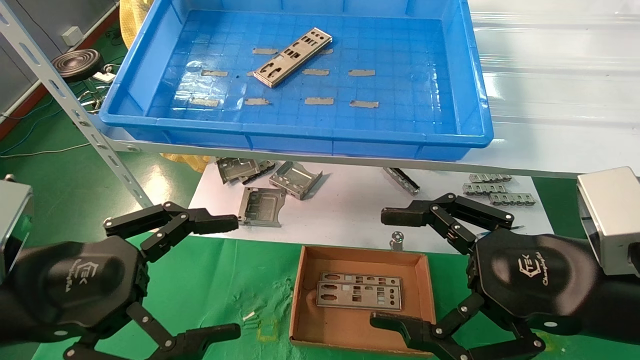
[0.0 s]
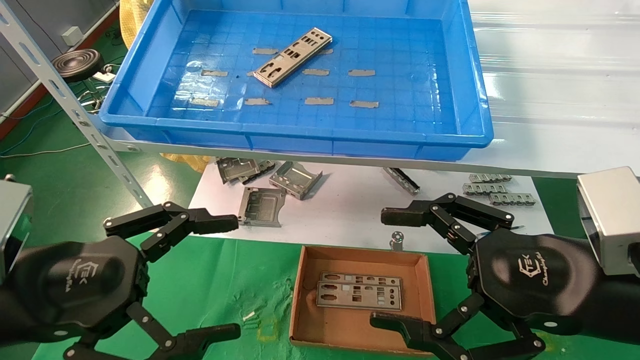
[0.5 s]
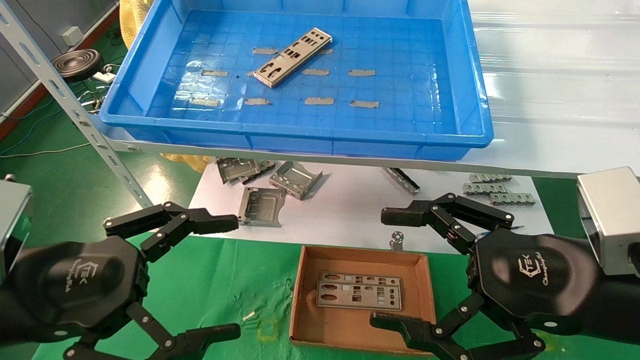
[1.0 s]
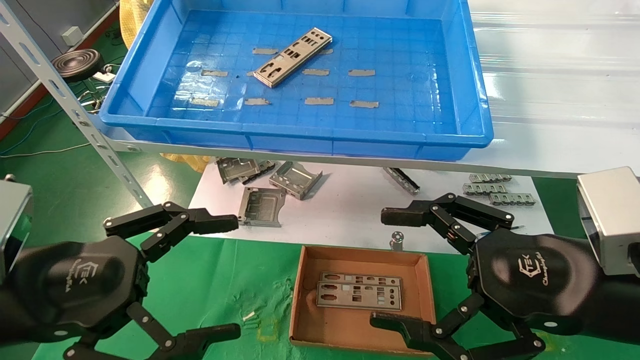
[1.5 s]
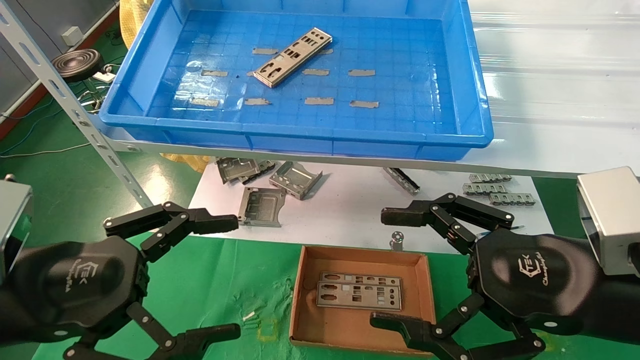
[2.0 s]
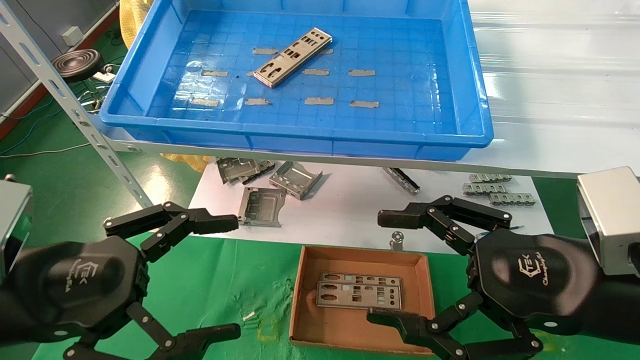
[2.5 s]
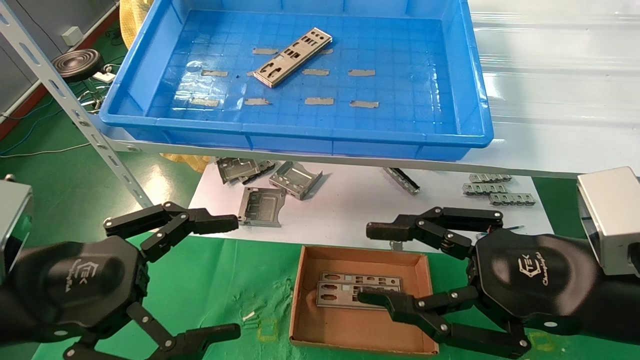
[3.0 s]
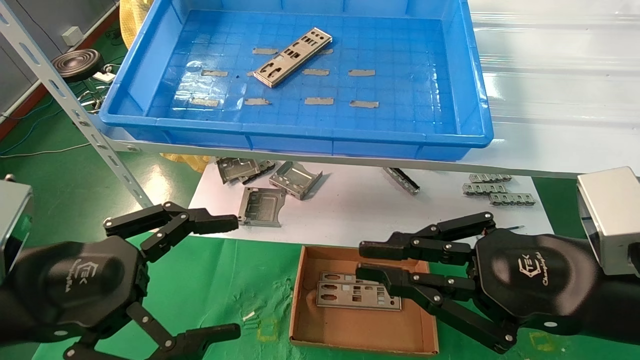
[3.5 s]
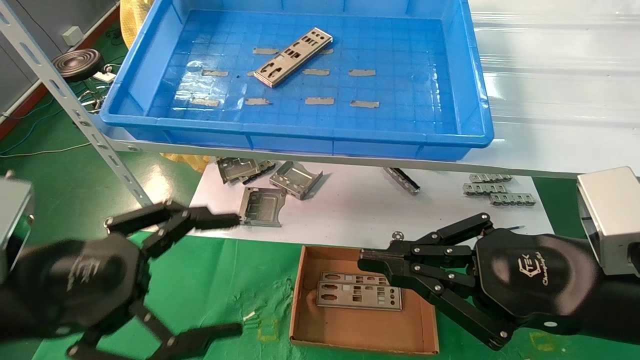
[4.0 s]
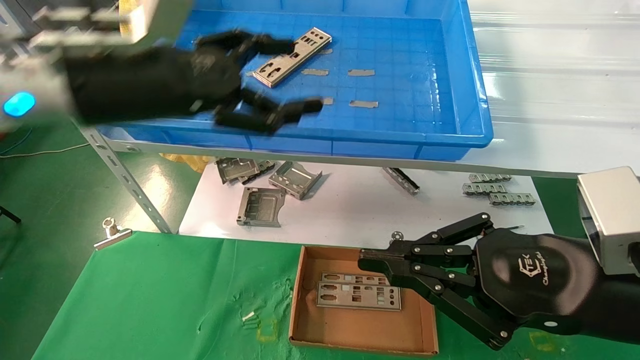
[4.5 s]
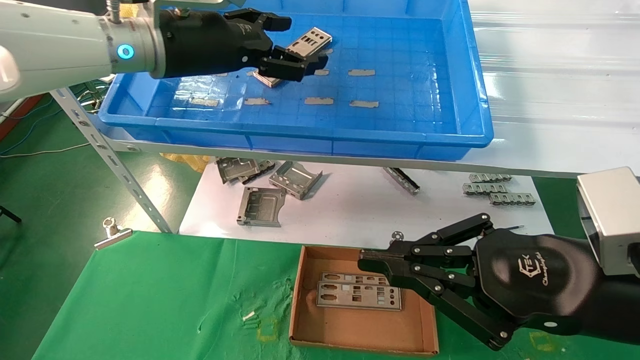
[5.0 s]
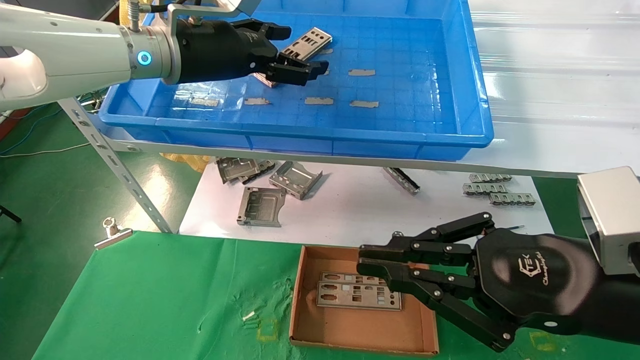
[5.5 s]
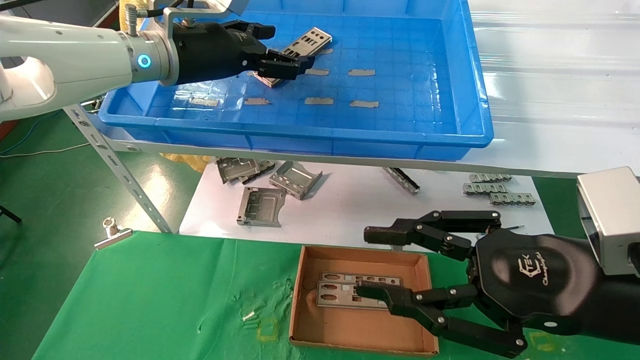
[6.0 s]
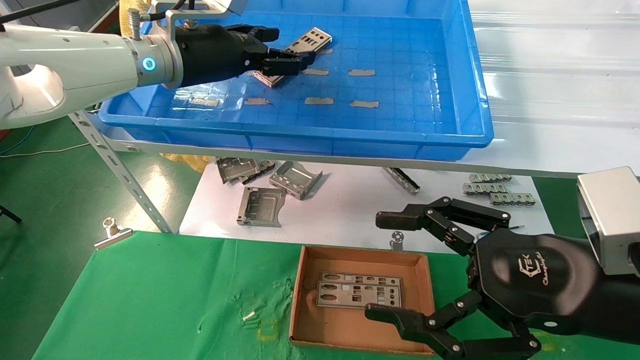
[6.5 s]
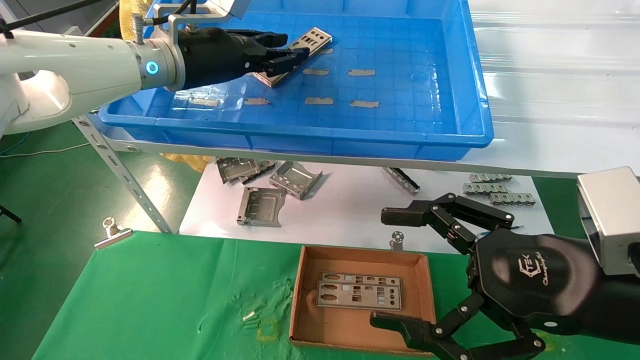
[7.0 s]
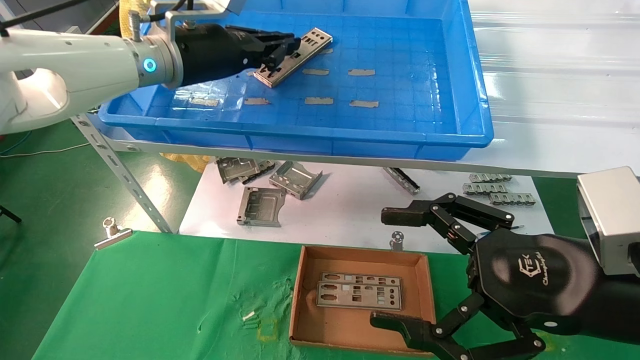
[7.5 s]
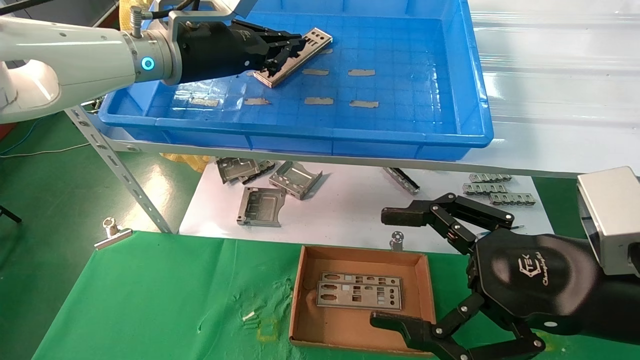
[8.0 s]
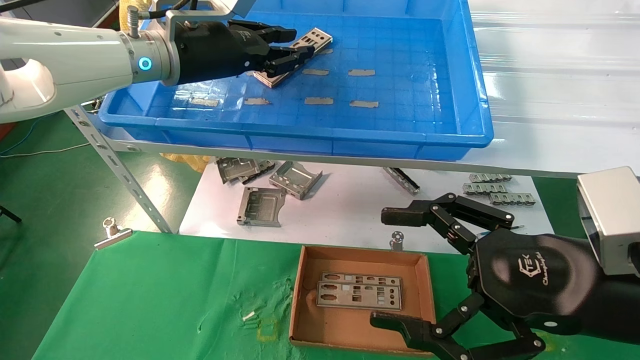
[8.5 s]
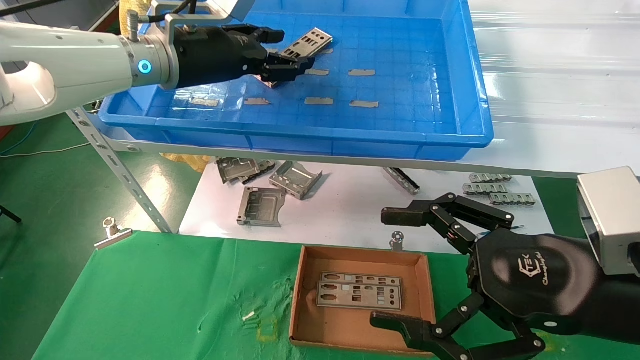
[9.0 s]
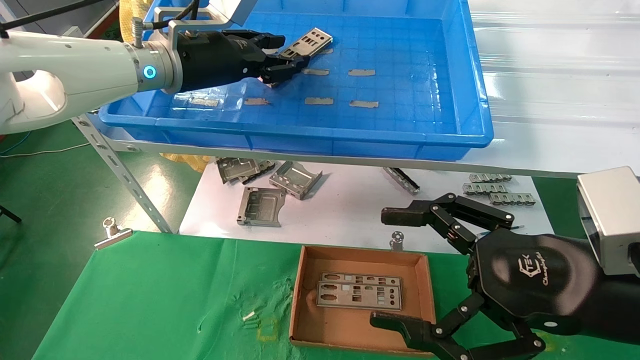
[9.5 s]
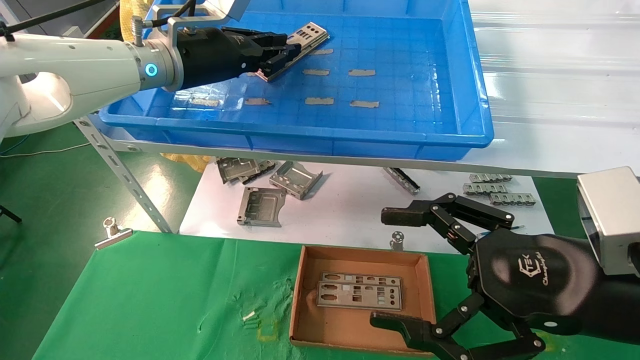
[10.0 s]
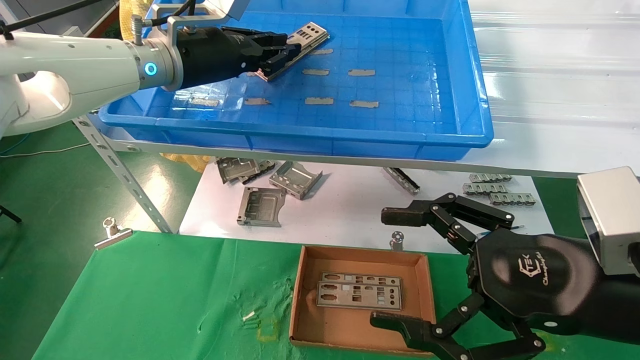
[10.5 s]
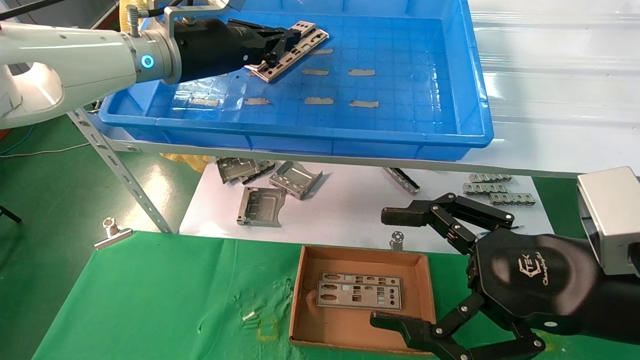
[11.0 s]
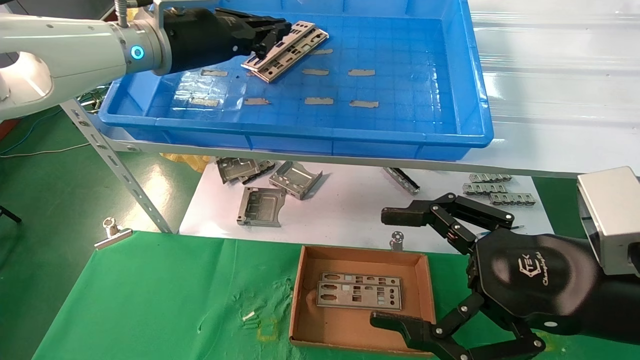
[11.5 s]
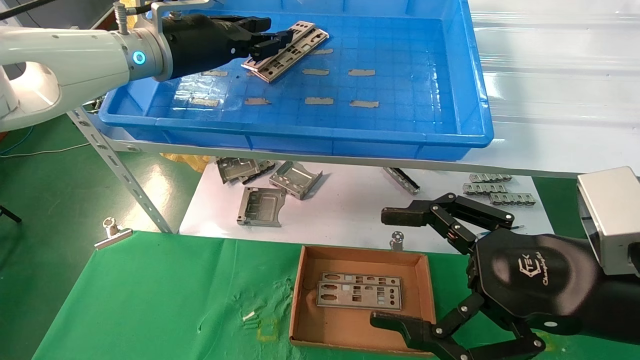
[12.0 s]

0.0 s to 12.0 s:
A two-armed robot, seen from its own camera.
Task of the whole recording: pick up the parts on the tray and put them in the cardboard box.
0.0 to 2.0 s: Both grippers stay about where they are.
2.0 to 4.0 s: The right gripper closes its fingers.
4.0 to 6.0 s: The left gripper goes some 30 cm forward, upward and to the right.
6.0 to 8.0 s: The left gripper closes up, while the right gripper opens its fingers.
8.0 to 10.0 s: The left gripper opens, then closes once more.
10.0 to 12.0 s: The grippers stay close to where they were, moving slightly.

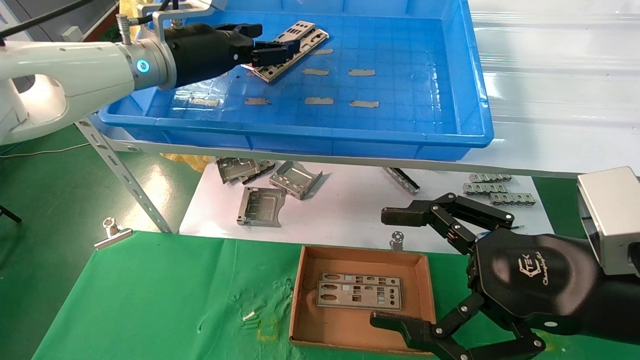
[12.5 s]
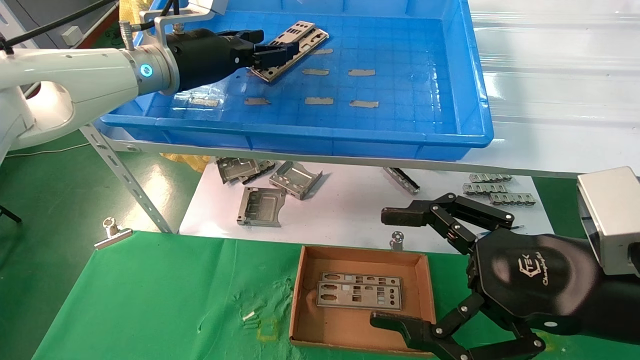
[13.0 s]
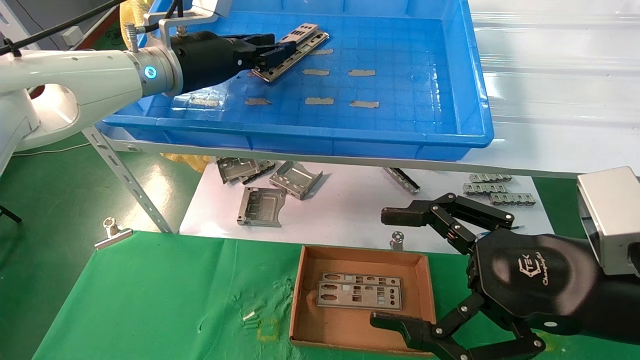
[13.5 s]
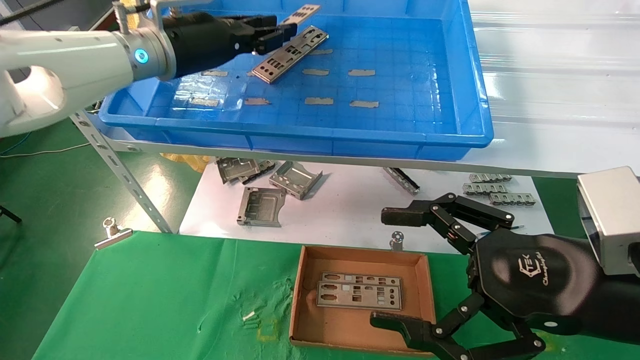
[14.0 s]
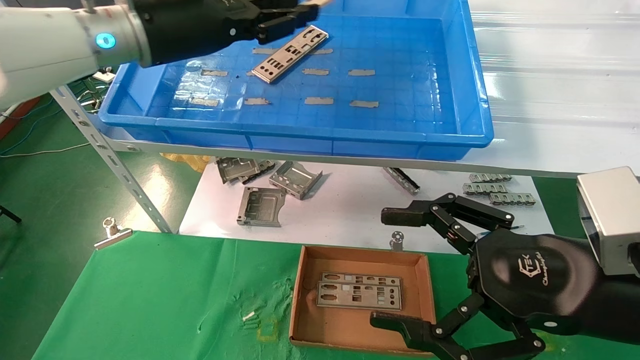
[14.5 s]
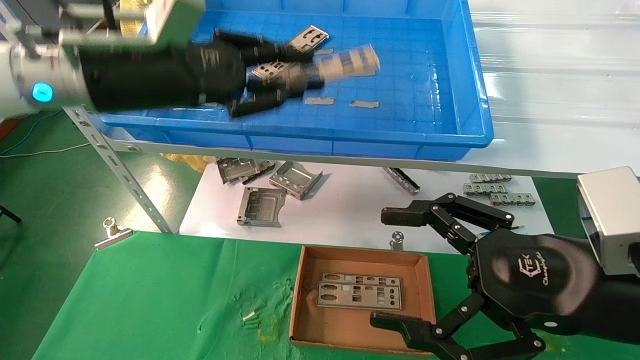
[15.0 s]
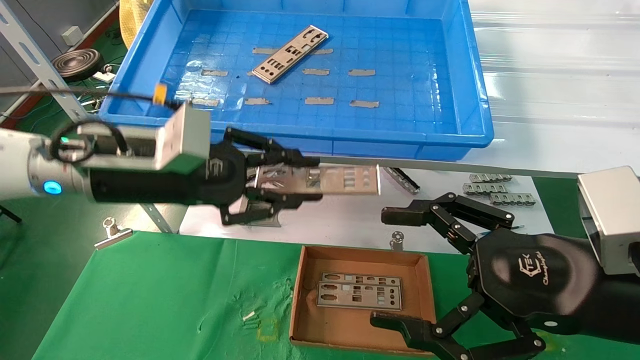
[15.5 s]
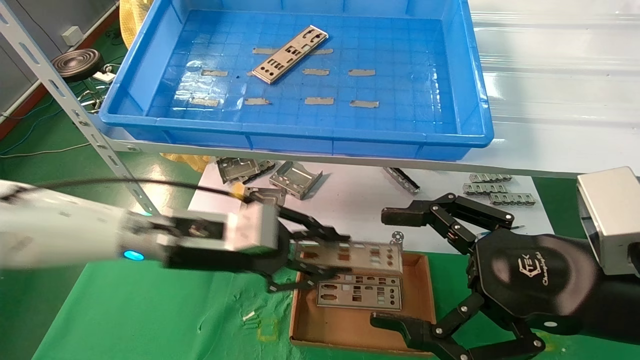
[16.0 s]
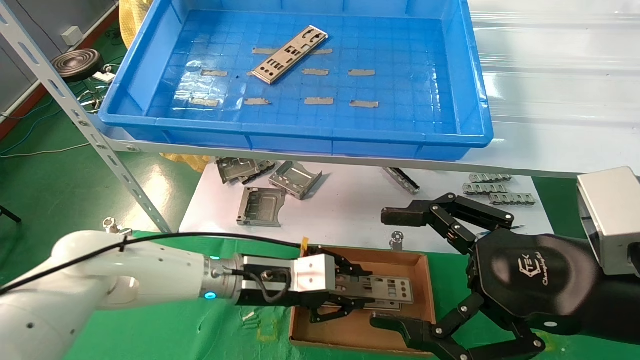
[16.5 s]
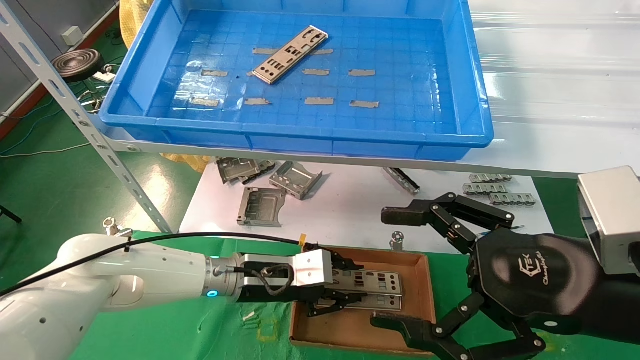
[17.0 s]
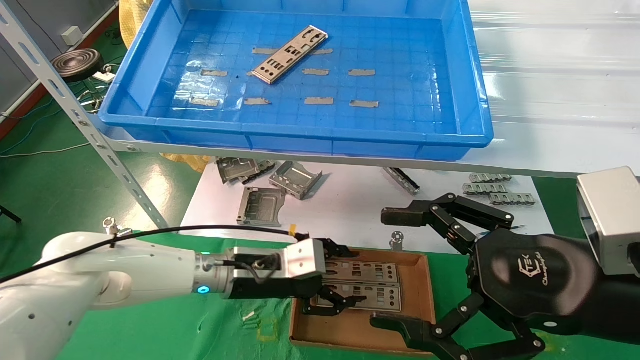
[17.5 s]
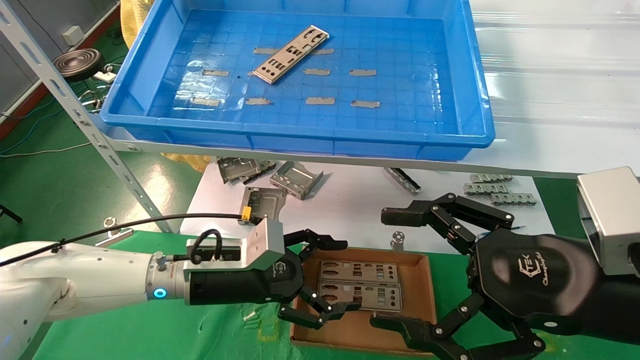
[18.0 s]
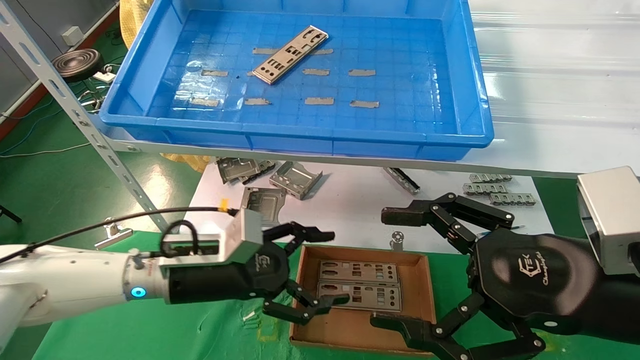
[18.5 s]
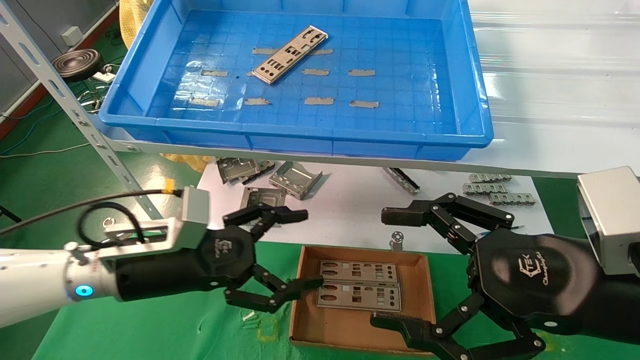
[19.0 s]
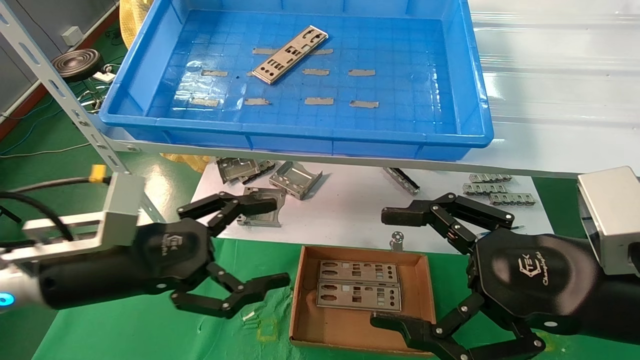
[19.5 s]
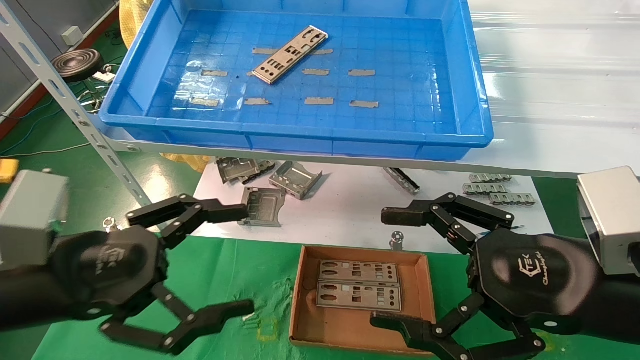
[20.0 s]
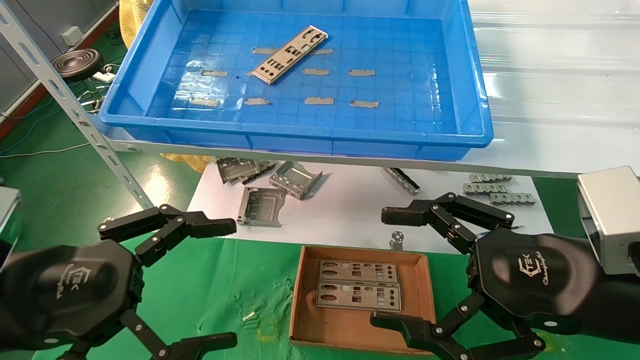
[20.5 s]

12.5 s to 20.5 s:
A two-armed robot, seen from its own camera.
Task of the whole recording: pick up the parts on the tray and put them in the cardboard box.
Step, 14.0 to 17.0 s: Place the IO bracket into the ingredient slot.
12.5 to 14.5 s: The left gripper heads backward, covering about 5 cm, and closes up.
14.5 to 16.5 s: The left gripper is displaced downward by roughly 30 cm.
16.5 to 18.5 s: The left gripper goes some 5 cm to the left, and opens up.
18.5 to 20.5 s: The left gripper is displaced backward, to the left and upward by some 20 cm.
